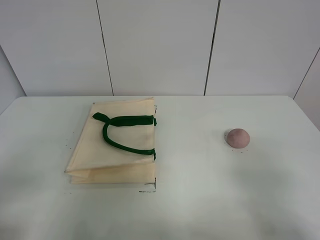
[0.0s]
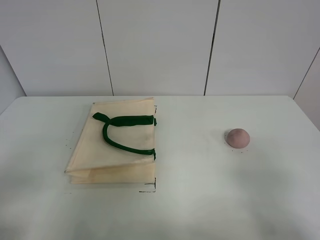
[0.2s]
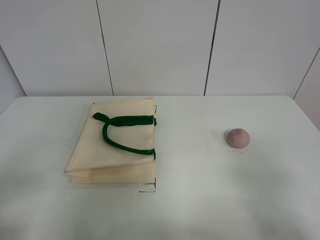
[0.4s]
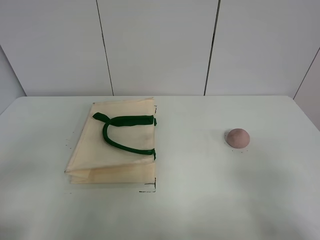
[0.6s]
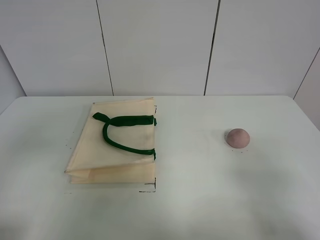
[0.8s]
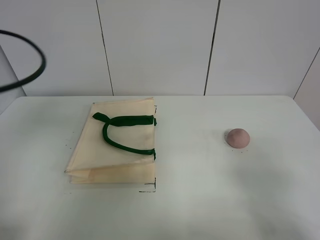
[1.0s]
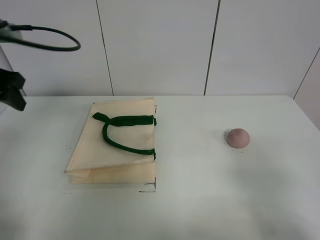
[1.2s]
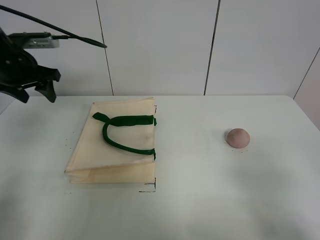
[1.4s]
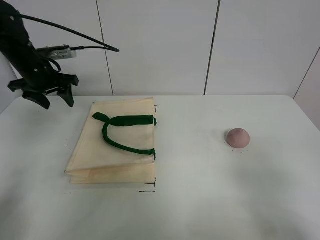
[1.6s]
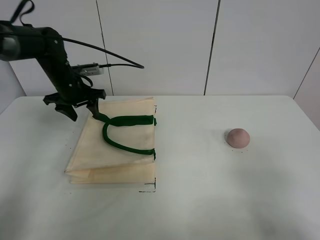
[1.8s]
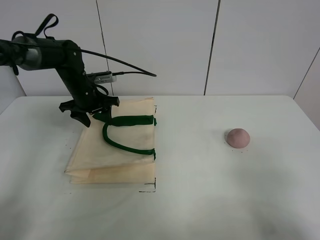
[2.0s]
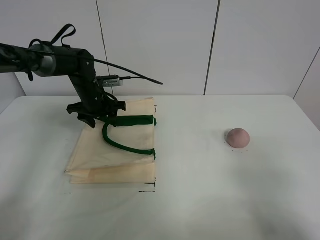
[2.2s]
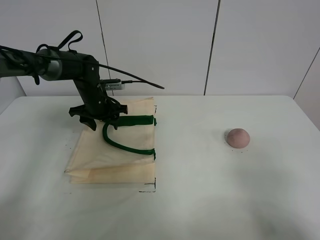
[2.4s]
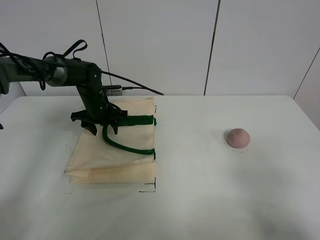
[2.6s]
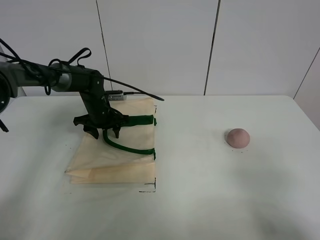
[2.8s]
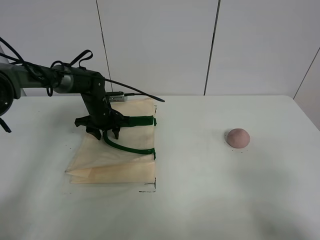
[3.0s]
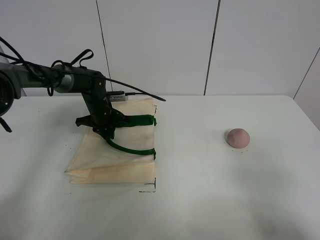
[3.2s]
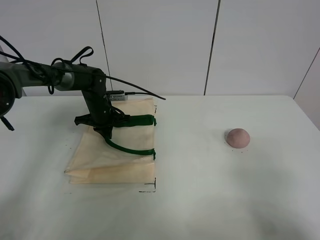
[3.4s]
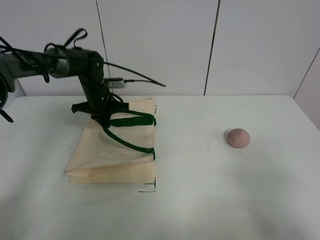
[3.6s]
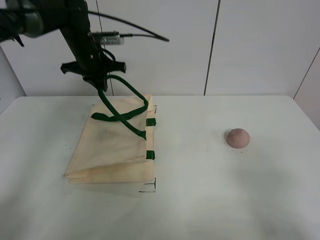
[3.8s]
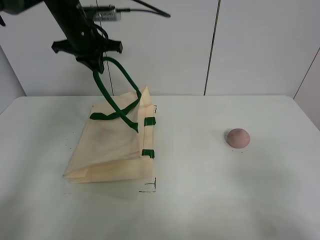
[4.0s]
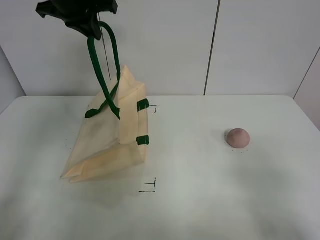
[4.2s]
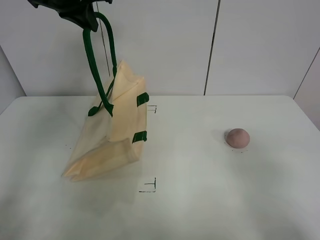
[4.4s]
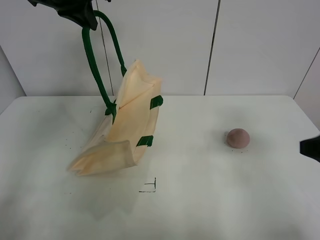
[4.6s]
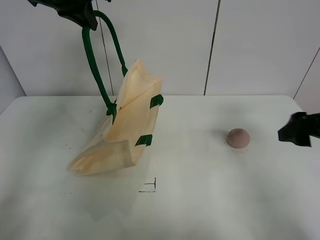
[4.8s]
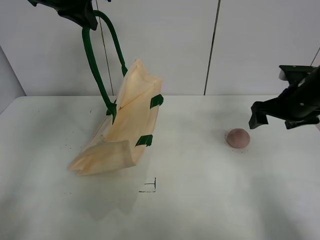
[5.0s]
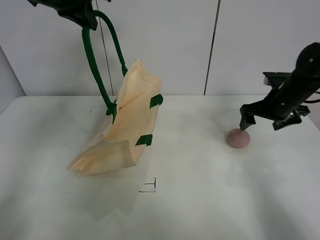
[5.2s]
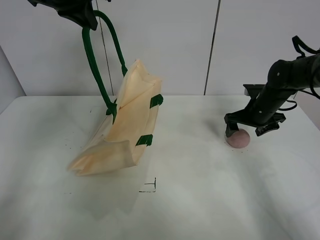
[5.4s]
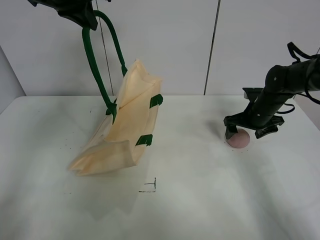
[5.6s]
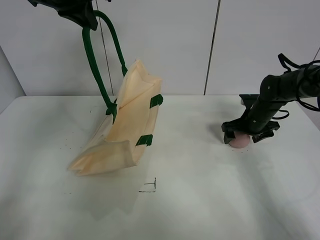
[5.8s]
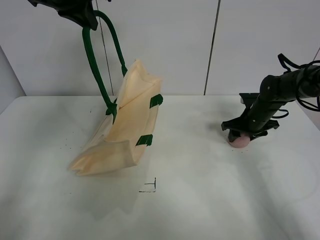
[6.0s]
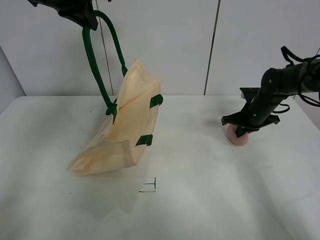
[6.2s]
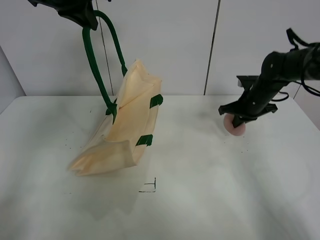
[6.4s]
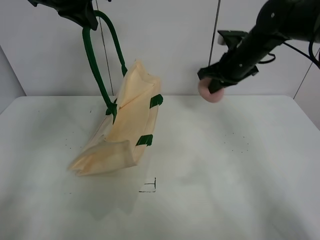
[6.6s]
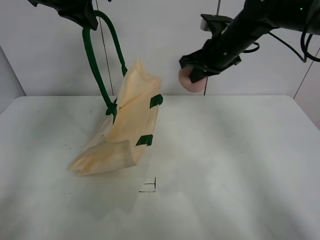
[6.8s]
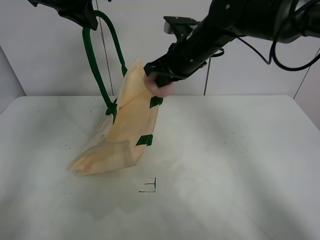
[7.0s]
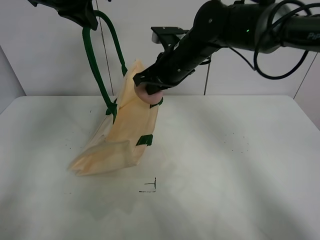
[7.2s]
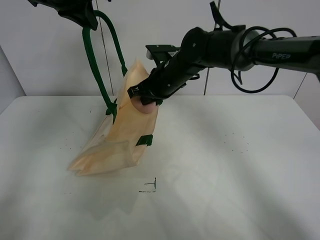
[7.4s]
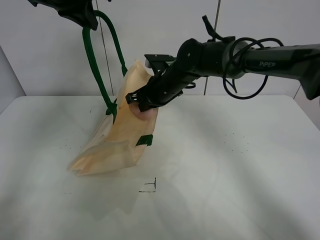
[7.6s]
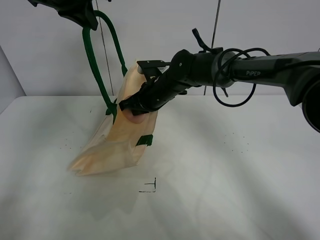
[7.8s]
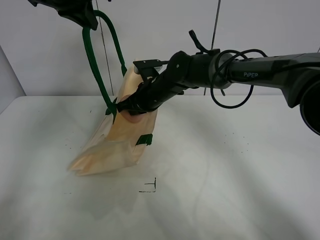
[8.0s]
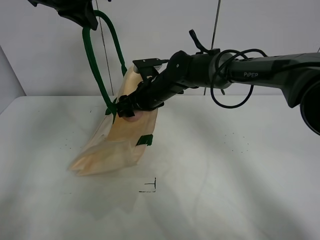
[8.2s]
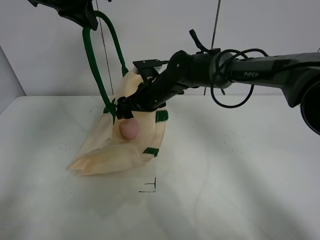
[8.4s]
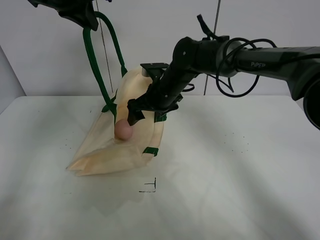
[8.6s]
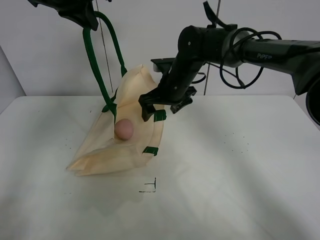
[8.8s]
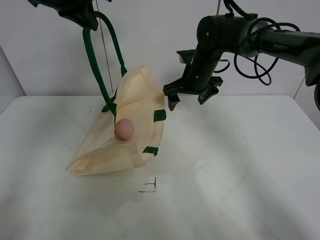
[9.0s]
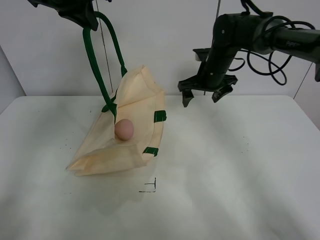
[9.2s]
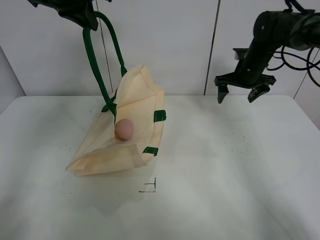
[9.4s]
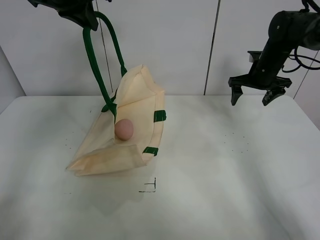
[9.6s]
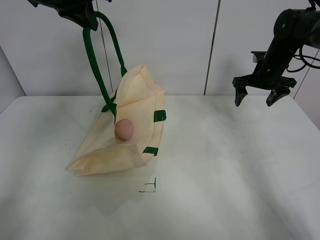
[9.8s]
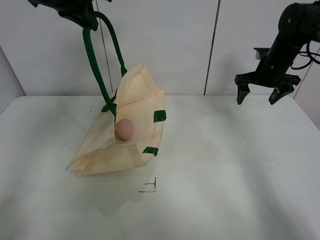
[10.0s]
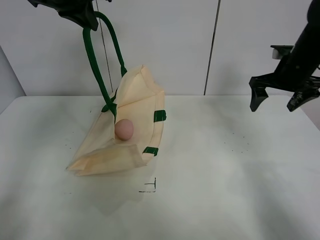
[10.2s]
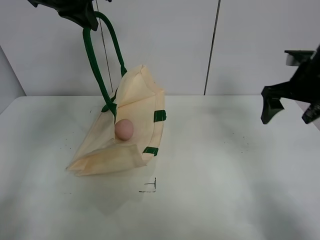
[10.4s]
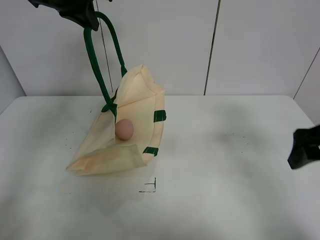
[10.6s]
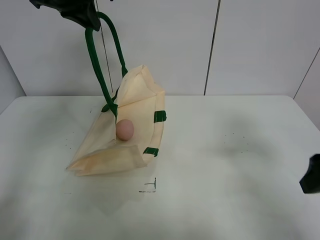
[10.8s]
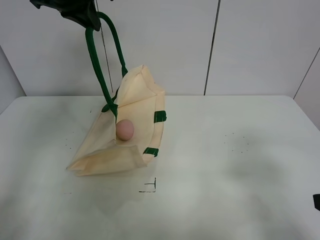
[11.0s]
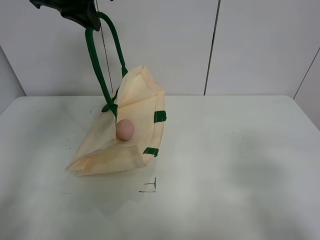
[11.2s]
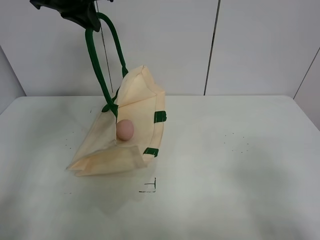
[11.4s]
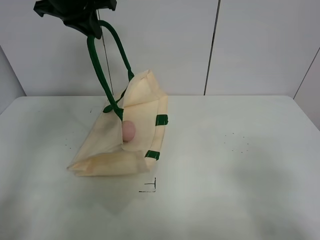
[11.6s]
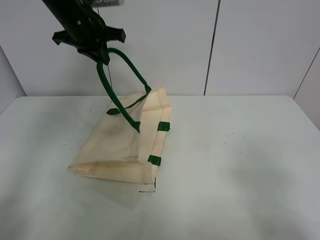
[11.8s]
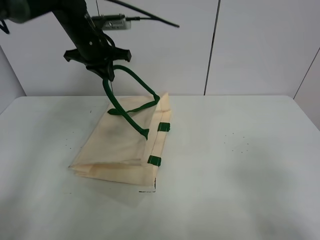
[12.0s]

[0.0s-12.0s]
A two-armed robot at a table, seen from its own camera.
Task of the whole recording: open the white linen bag and put the peach in the bag.
Step, 0.0s to 4.4s: Lift the handbag with left gripper.
Step, 4.6s to 6.2s: Grasp the peach with right gripper.
Step, 6.4s to 8.6s: Place the peach in the handbag with right gripper.
0.0s to 1.6s: The left gripper moves forward, about 40 cm.
1.6s to 3.0s: The left gripper is displaced downward and to the right by about 20 cm.
3.0s to 4.4s: The left gripper heads upward, covering roughly 35 cm, and closes.
4.4s to 6.0s: The right gripper shifts approximately 40 cm forward and downward, and closes.
6.0s to 7.6s: The right gripper shifts approximately 25 cm to the left, and closes its fingers.
7.6s to 9.0s: The right gripper travels to the right by approximately 10 cm, and opens up.
9.0s to 10.4s: The right gripper is displaced to the right and backward by roughly 25 cm.
10.4s to 12.0s: The right gripper shifts roughly 30 cm backward; the left gripper shifts approximately 15 cm downward.

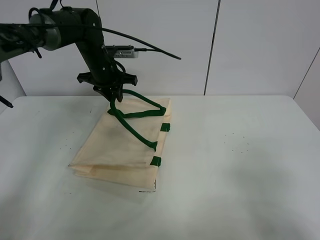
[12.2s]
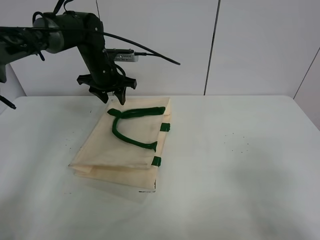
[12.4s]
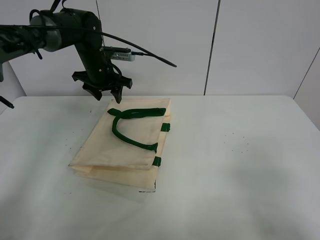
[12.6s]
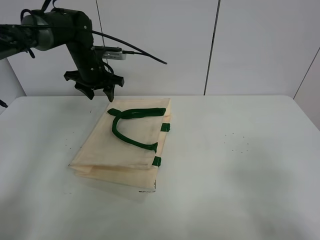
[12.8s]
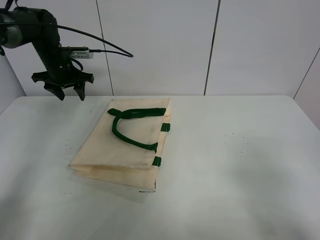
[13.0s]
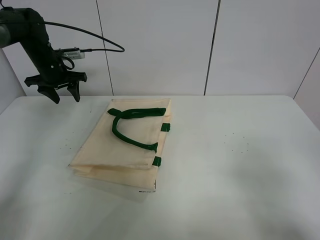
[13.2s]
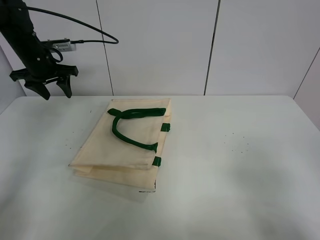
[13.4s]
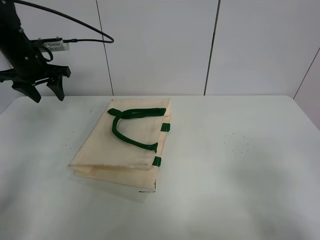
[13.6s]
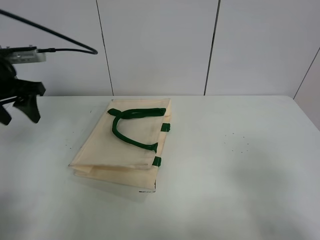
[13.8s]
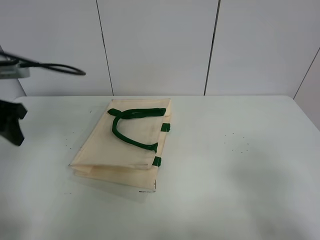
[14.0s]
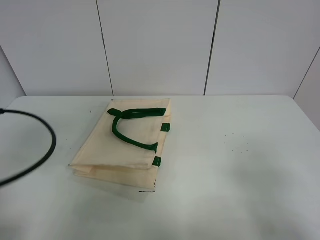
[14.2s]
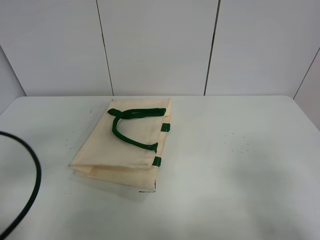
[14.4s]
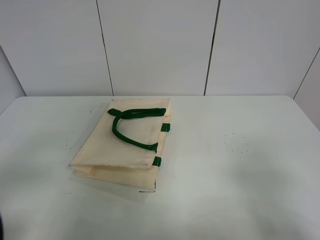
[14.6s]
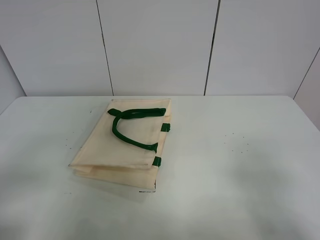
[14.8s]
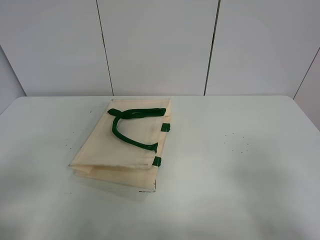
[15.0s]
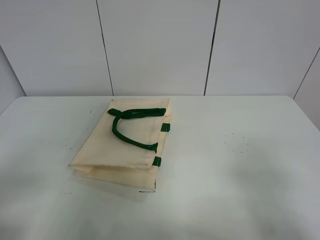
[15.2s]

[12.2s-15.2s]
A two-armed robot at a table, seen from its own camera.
Task of the whole recording: open the white linen bag and put the peach in the bag.
12.2s to 13.8s: The left gripper heads backward and to the left, covering roughly 25 cm, and opens its fingers.
13.8s to 15.2s: The left gripper moves backward, about 30 cm.

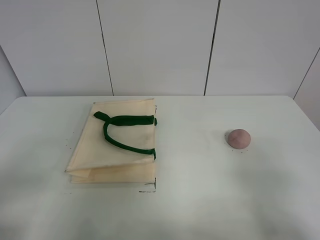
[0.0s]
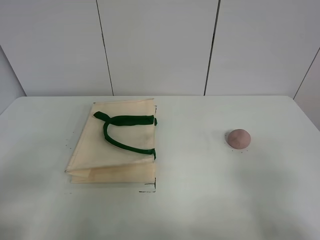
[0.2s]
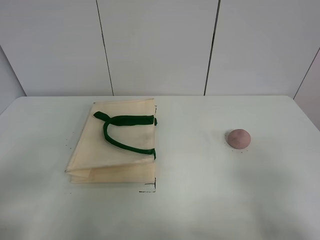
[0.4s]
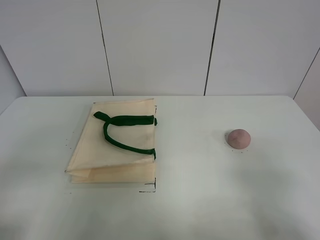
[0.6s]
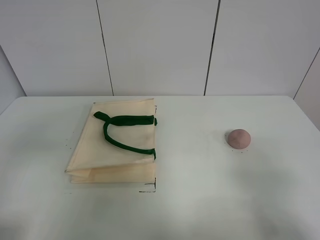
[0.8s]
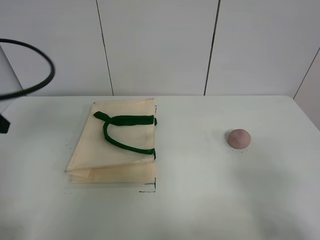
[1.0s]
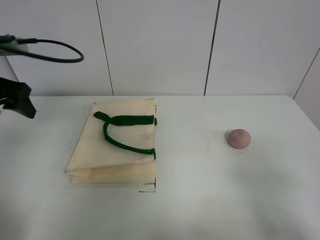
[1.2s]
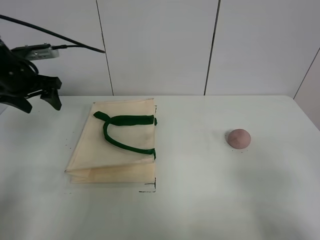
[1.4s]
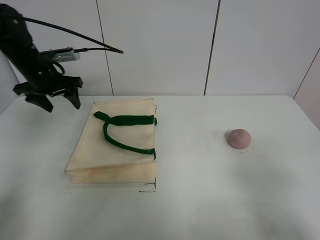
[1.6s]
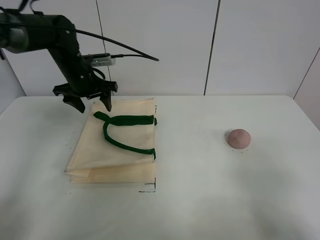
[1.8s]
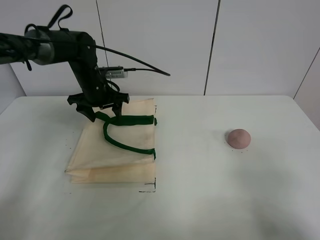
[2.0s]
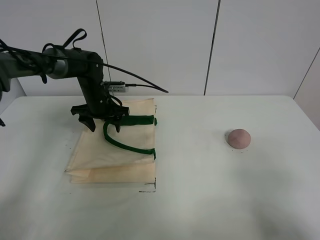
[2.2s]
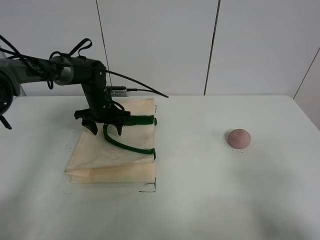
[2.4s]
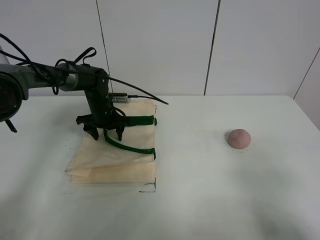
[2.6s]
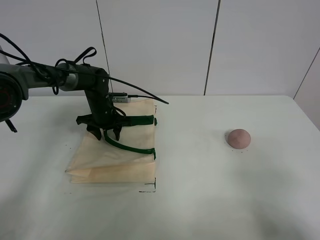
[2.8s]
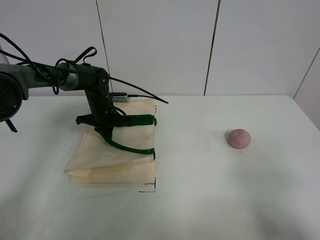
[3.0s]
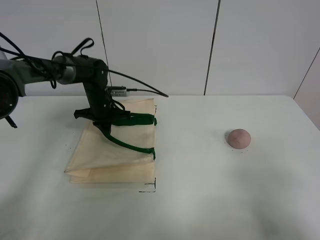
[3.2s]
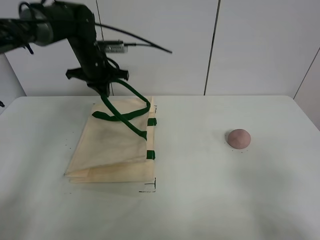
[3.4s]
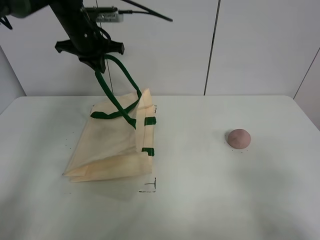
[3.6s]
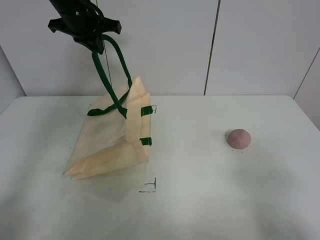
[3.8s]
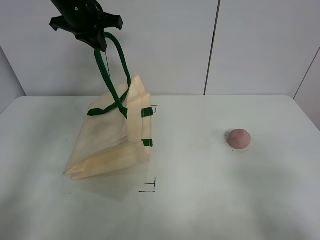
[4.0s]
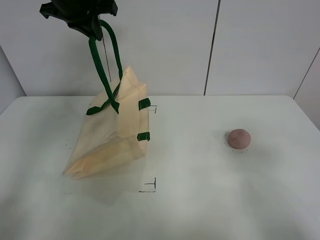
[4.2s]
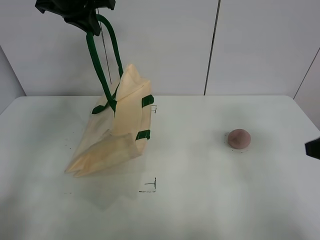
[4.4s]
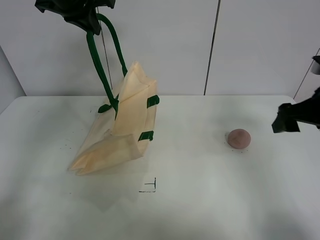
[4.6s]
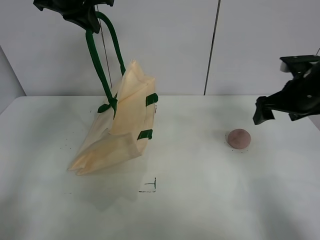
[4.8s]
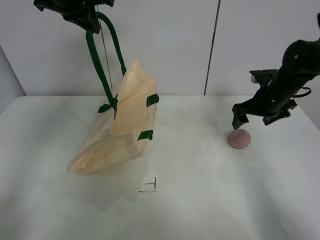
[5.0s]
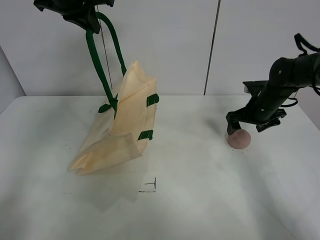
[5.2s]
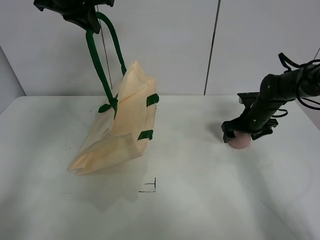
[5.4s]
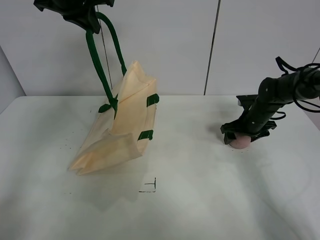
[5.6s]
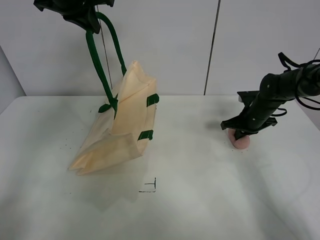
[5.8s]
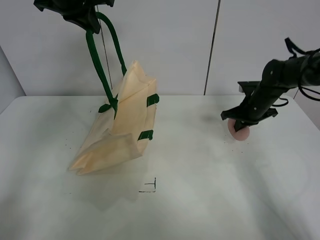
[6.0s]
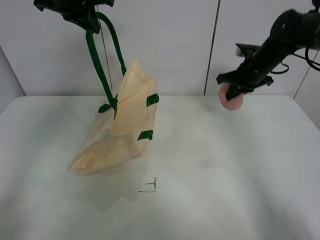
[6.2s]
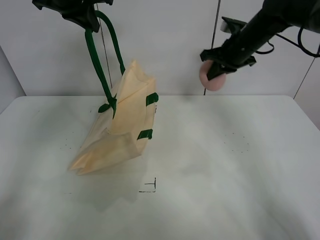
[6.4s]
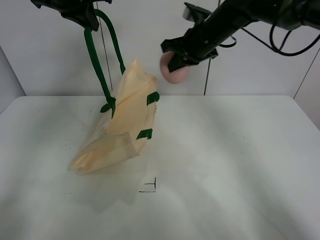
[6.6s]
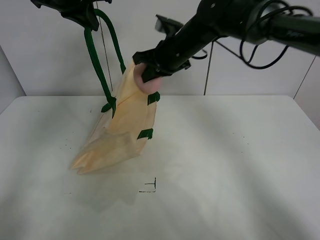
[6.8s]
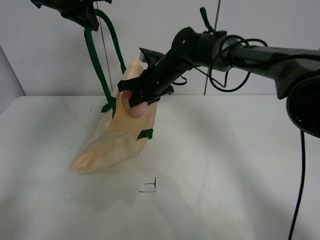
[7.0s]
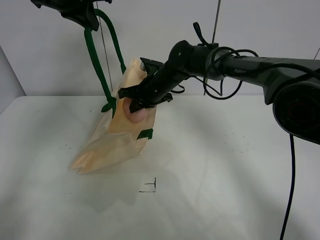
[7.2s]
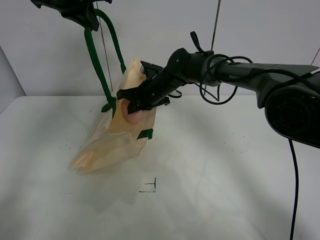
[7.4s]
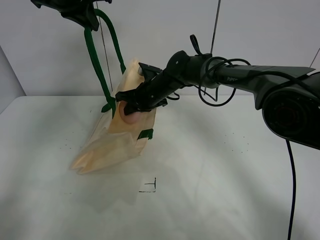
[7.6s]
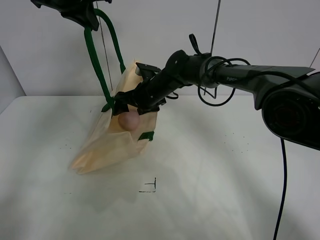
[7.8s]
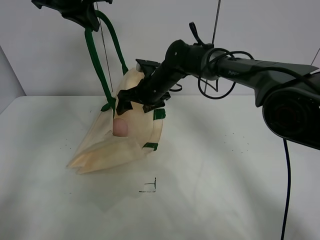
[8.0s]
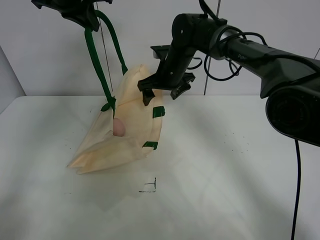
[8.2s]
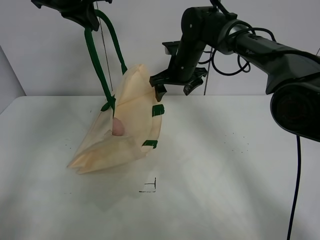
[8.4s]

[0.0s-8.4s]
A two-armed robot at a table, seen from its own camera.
Task of the whole recording: open the white linen bag and put the peach in the bag.
Step, 0.0s to 4.0s: Lift the handbag with left gripper.
Step, 4.2s to 6.0s: Grasp the peach with right gripper.
Step, 6.2s to 8.0s: Place the peach in the handbag with right gripper.
0.0s to 1.4s: The left gripper heads forward, covering some 40 cm.
1.4s to 2.8s: The left gripper moves downward, to the right and forward, roughly 20 cm, and closes up.
2.8s to 4.2s: The left gripper shifts some 30 cm upward, and closes. The right gripper travels forward by approximately 5 cm.
4.2s to 5.6s: The right gripper moves forward and downward, approximately 40 cm.
5.6s to 7.0s: The right gripper heads to the left and upward, covering about 30 cm, and closes.
7.0s to 8.4s: The right gripper shifts roughly 5 cm to the right, and opens.
